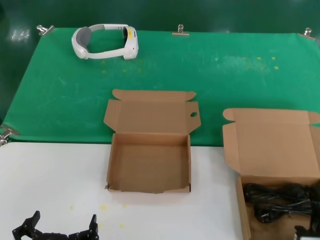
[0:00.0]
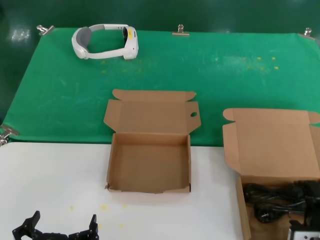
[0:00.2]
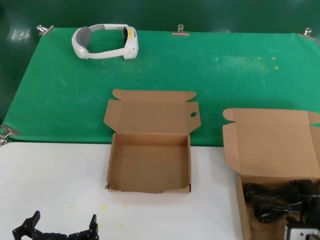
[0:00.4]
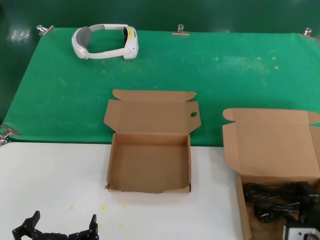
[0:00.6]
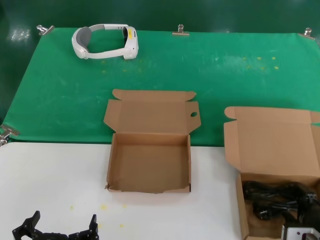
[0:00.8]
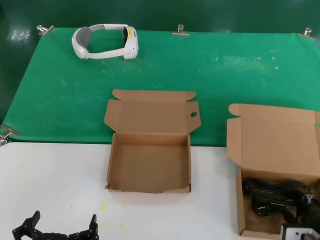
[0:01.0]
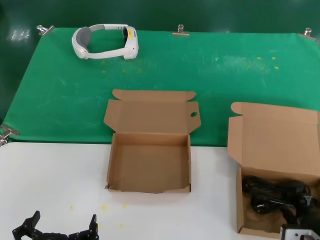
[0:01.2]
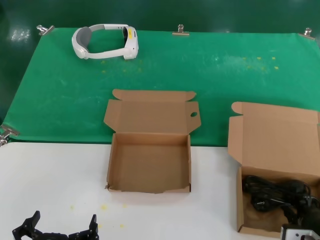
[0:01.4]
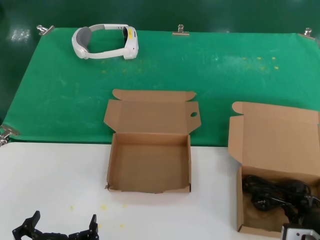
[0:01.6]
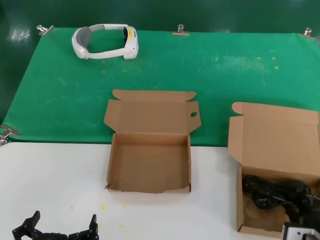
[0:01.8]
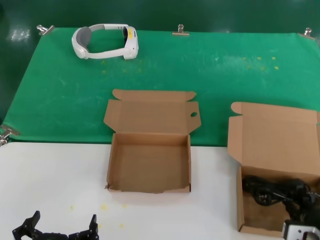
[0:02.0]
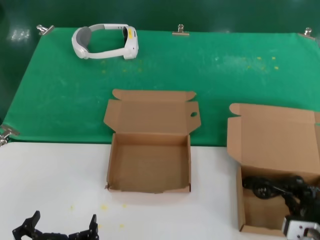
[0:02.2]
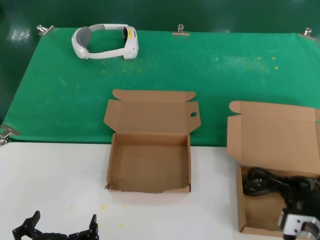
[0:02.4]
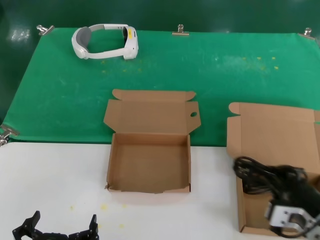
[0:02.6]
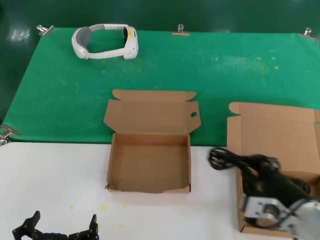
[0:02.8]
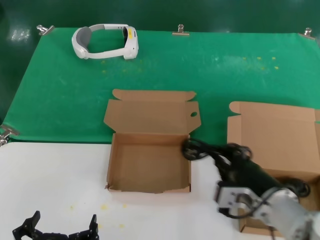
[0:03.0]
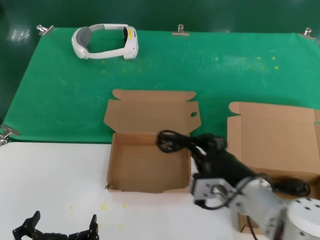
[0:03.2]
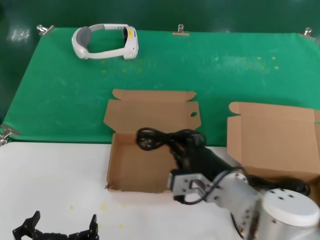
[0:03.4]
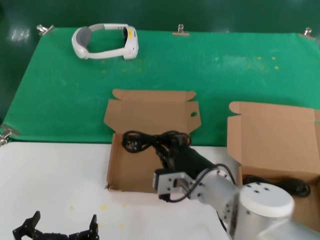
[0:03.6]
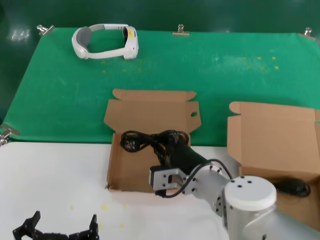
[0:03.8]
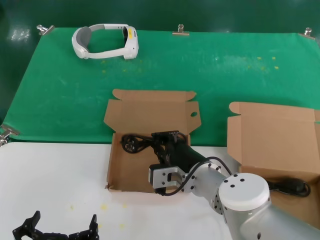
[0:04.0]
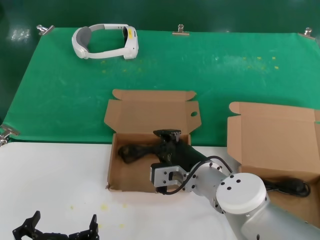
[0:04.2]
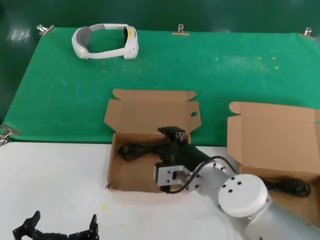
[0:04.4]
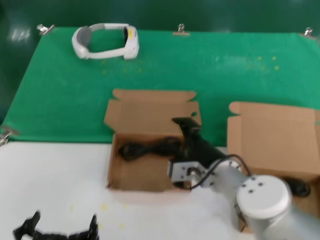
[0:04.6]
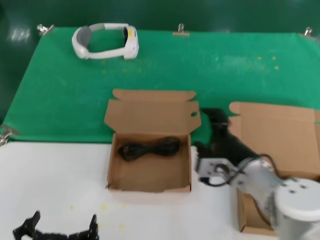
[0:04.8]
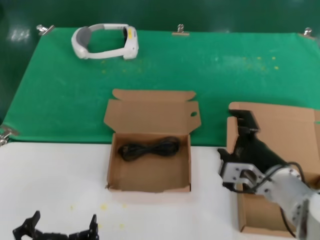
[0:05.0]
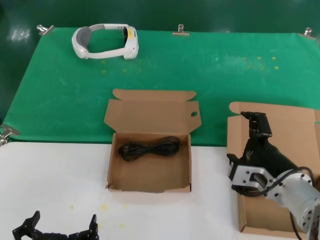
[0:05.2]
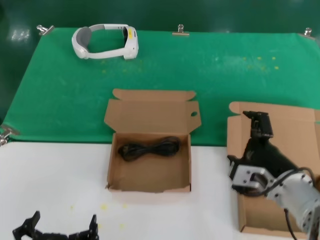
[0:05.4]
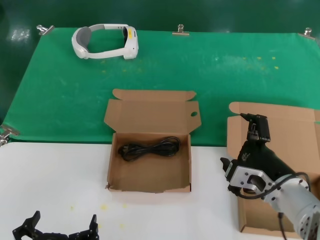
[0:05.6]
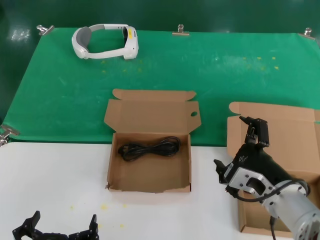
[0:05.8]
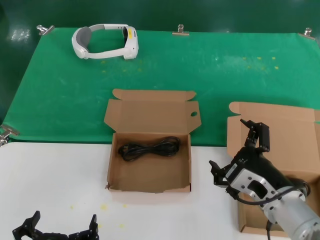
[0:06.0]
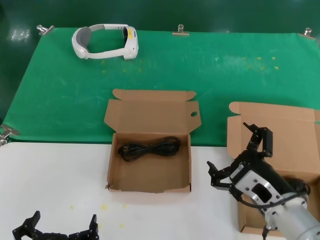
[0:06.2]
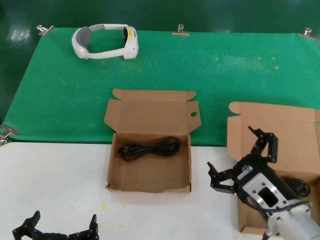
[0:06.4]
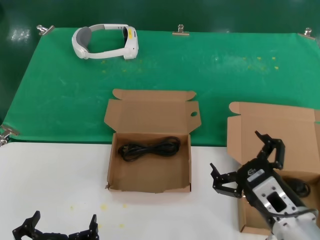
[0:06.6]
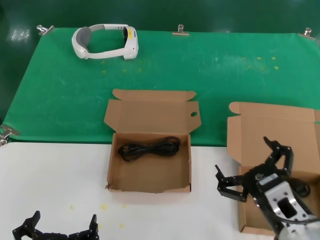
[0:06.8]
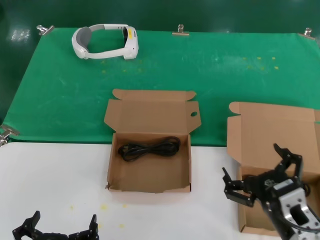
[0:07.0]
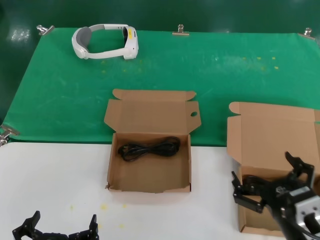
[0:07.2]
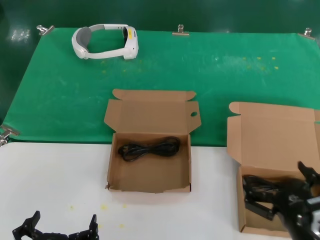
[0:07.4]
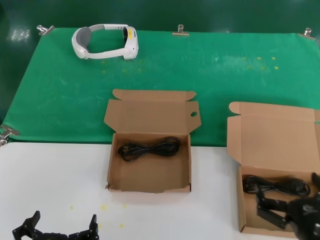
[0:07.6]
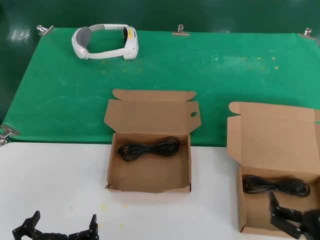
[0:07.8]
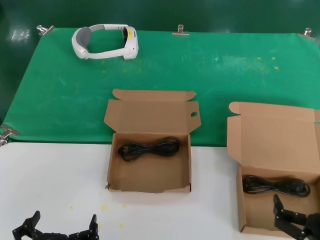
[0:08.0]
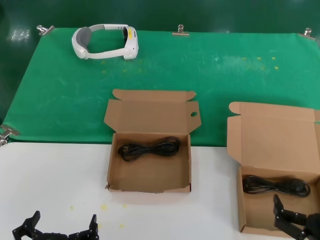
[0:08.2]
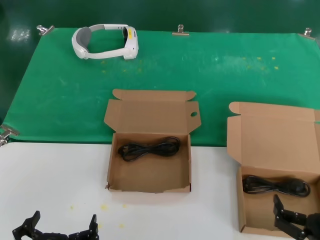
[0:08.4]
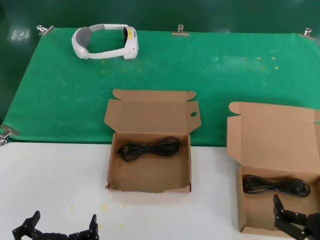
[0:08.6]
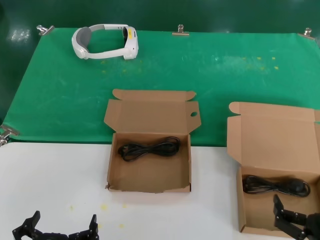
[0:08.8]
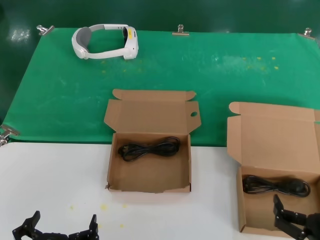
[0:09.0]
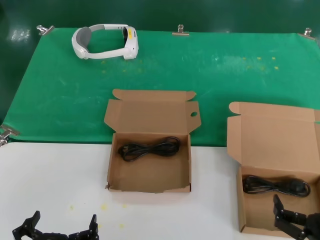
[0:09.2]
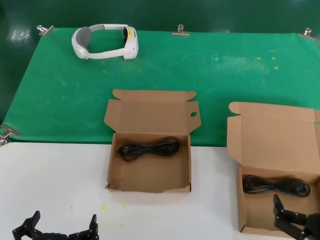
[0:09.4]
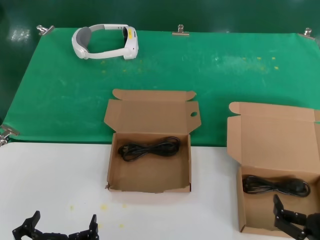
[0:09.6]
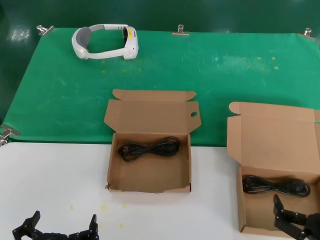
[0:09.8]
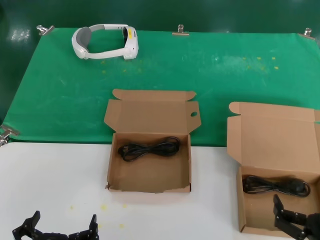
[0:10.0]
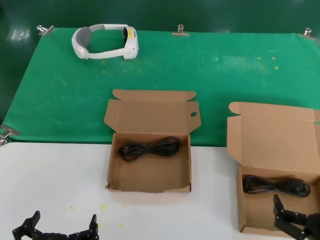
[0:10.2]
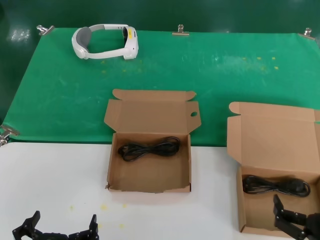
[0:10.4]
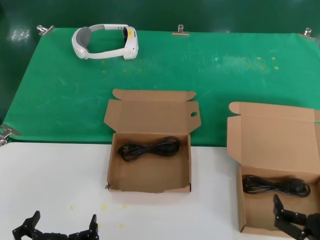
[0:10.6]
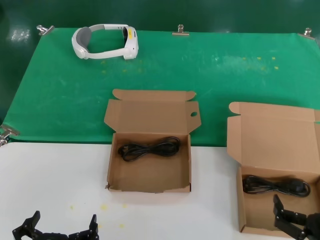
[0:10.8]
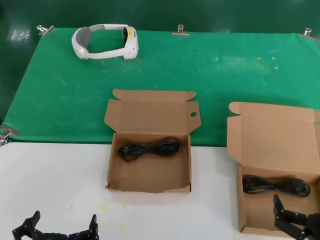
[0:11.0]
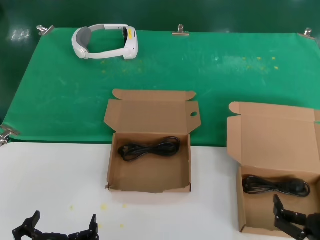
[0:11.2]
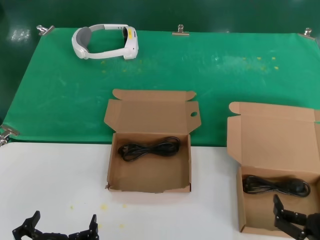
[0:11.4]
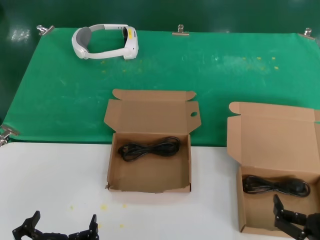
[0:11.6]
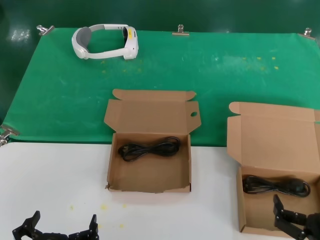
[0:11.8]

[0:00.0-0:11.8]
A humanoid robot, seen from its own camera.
Task of the whole recording: take the parts from the box containing them and put them into an empty box.
Step, 0:01.4 to 0:04.6: Place the data cable in the another box.
0:00.0 to 0:01.4: The hands move only a little.
0:01.4 to 0:03.0: The right hand shifts roughly 15 cm to the left and upward.
0:03.0 to 0:04.4: The right hand heads to the left and forward, covering approximately 15 cm.
0:04.4 to 0:06.0: The right hand moves to the right and backward, approximately 15 cm.
0:06.0 to 0:07.4: The right hand heads backward and downward, covering some 10 cm.
0:07.4 to 0:08.8: The right hand moves roughly 5 cm.
0:08.8 to 0:11.8: Both hands stay about where they are.
